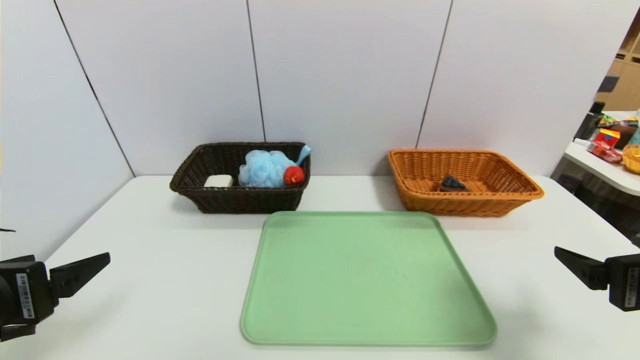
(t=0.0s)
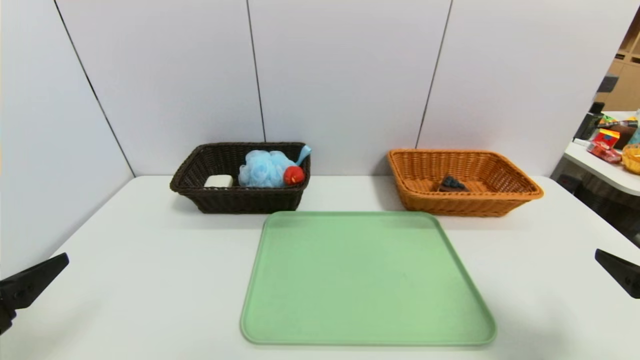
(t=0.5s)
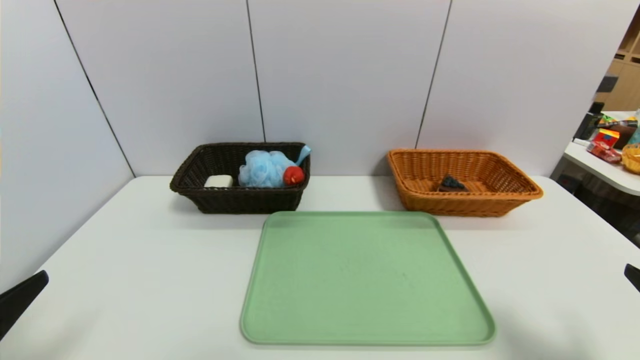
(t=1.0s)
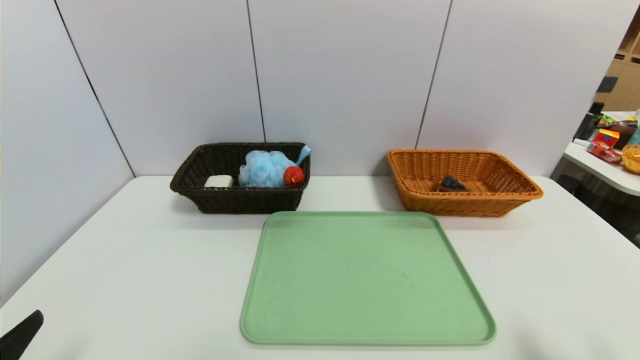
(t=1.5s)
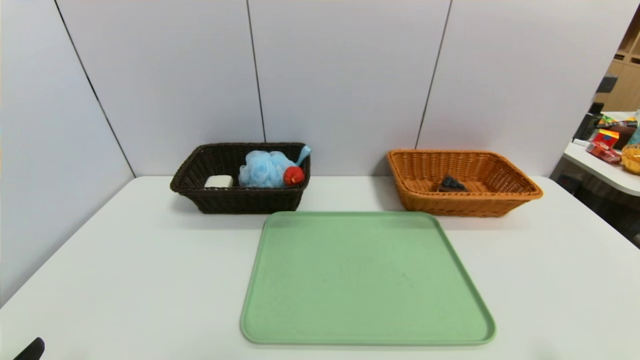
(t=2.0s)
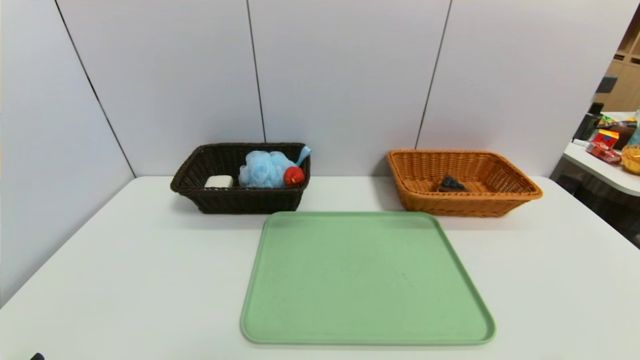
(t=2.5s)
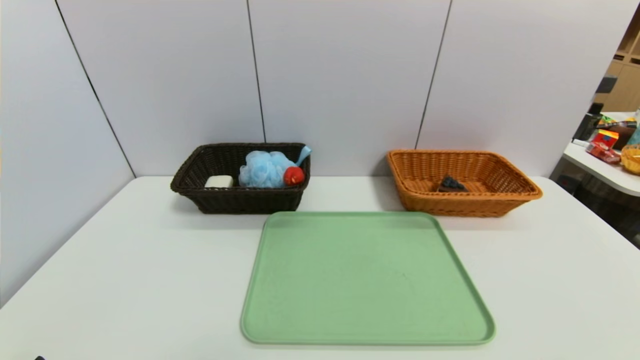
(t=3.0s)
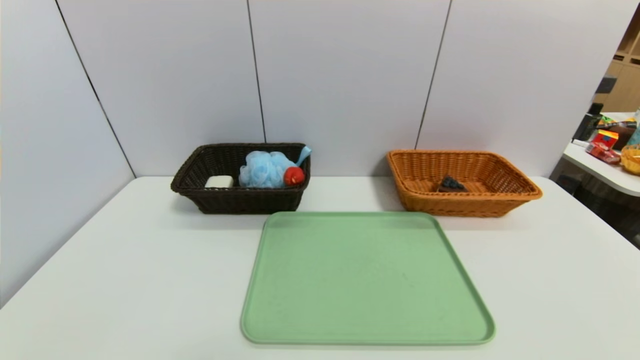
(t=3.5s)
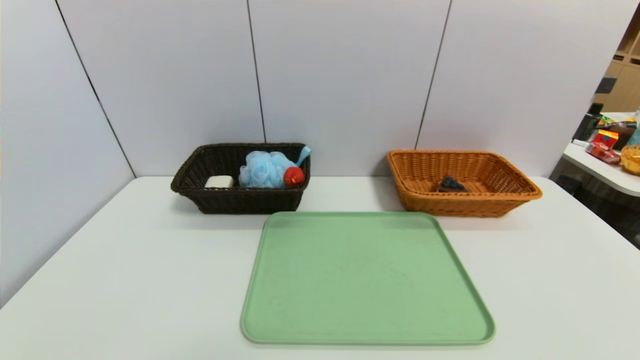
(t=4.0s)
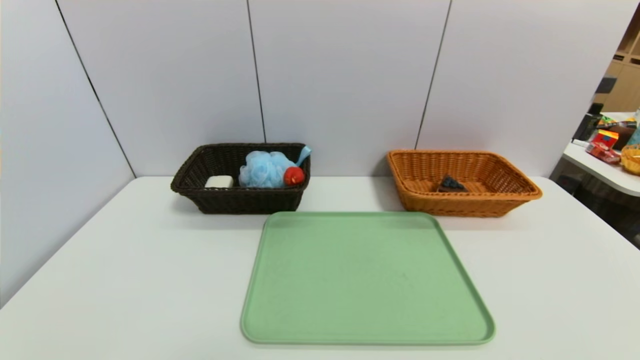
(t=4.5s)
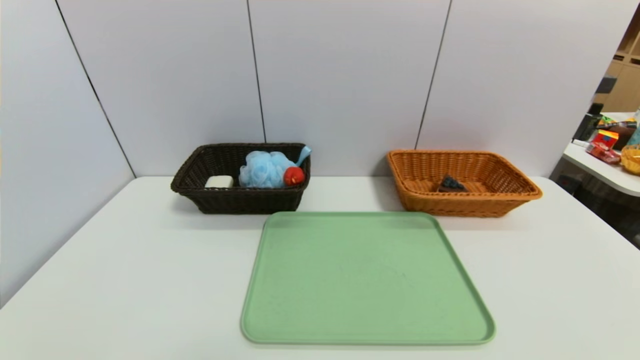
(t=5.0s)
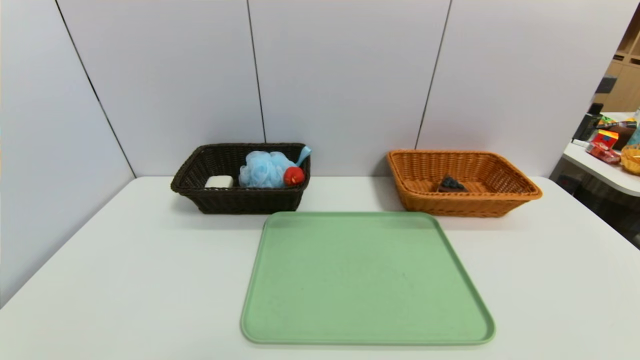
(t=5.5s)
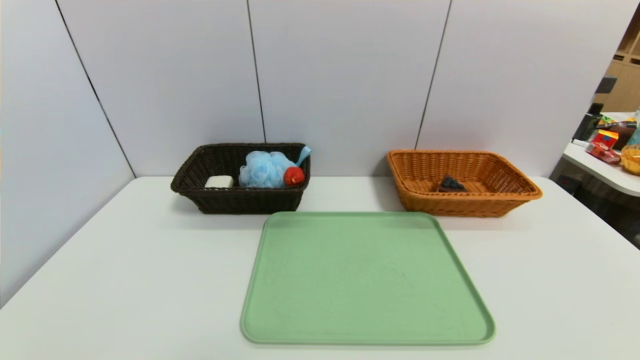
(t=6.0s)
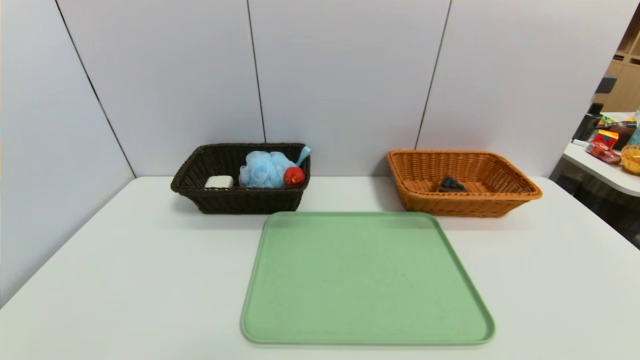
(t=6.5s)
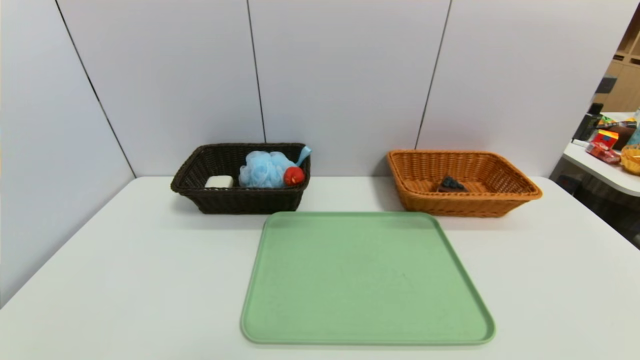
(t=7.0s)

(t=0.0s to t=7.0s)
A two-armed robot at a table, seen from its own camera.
Task of the whole recording: place the food in the right basket with the right gripper, and place the non food items in the left basket with the left gripper.
t=0.0s - t=2.0s: Both grippers move backward and downward, roughly 15 cm.
